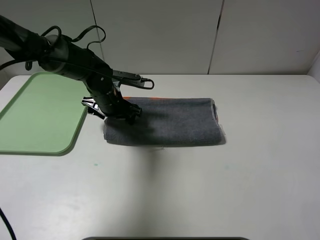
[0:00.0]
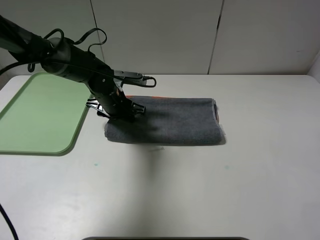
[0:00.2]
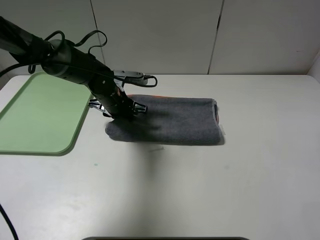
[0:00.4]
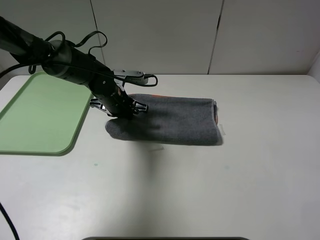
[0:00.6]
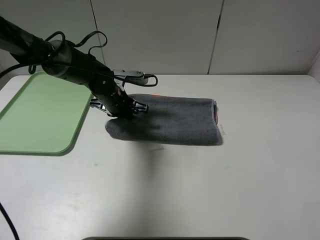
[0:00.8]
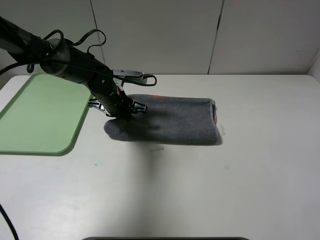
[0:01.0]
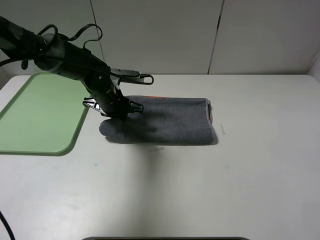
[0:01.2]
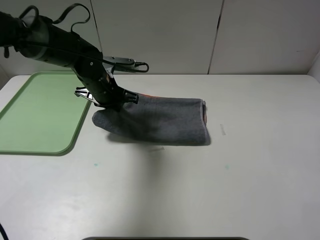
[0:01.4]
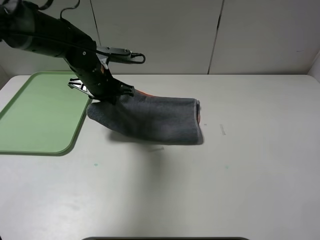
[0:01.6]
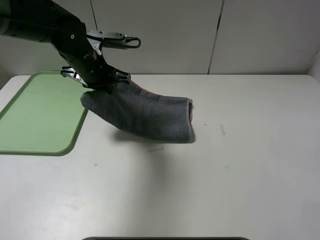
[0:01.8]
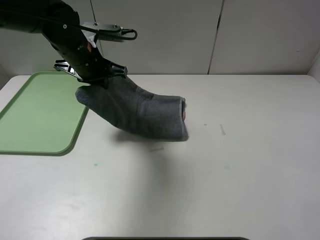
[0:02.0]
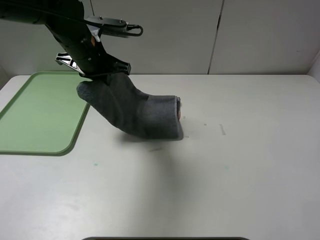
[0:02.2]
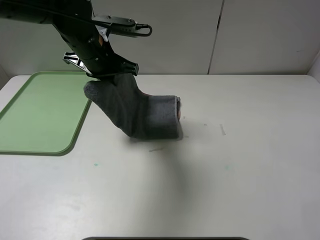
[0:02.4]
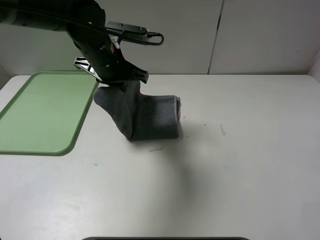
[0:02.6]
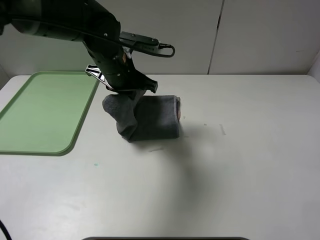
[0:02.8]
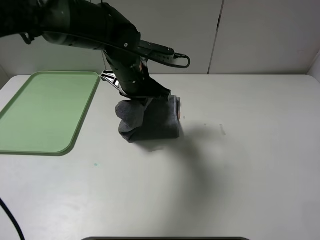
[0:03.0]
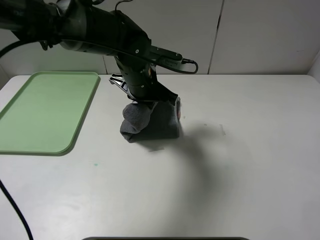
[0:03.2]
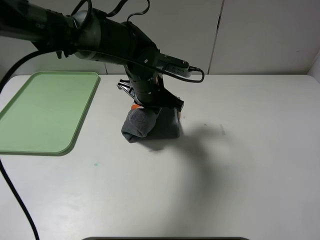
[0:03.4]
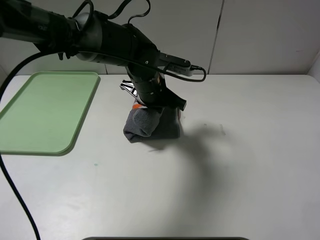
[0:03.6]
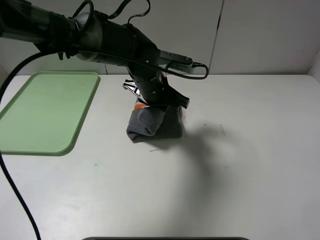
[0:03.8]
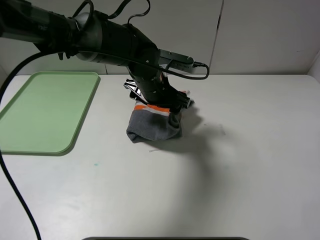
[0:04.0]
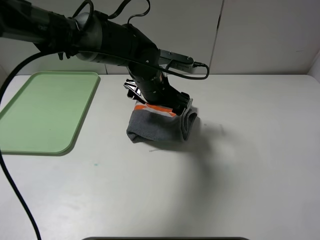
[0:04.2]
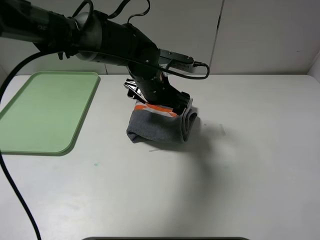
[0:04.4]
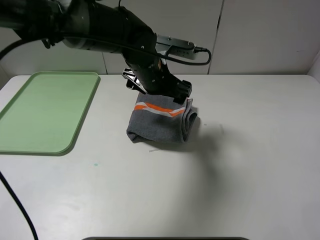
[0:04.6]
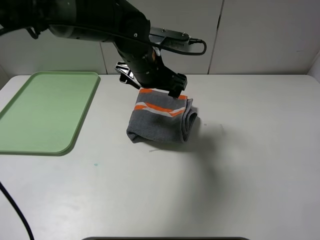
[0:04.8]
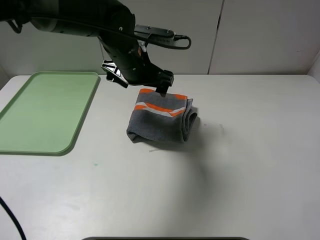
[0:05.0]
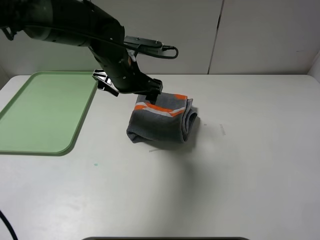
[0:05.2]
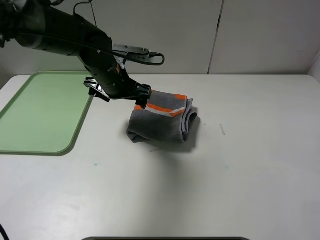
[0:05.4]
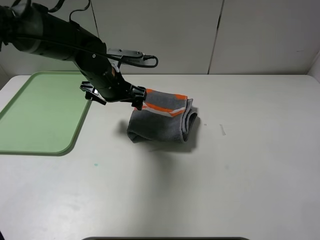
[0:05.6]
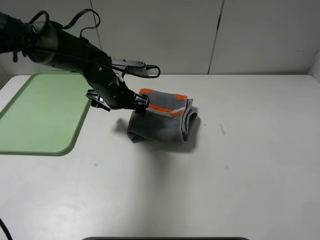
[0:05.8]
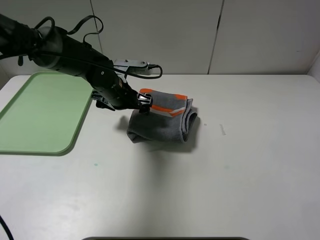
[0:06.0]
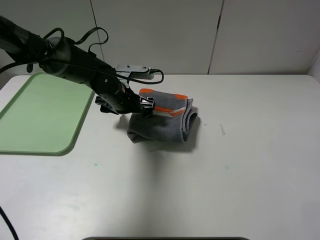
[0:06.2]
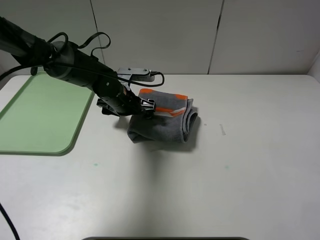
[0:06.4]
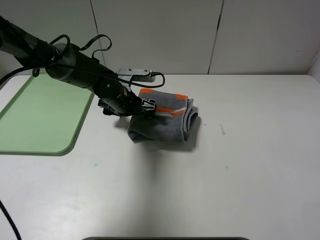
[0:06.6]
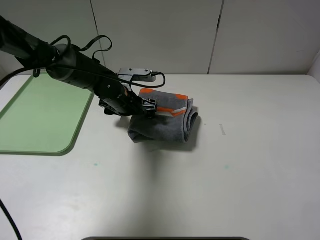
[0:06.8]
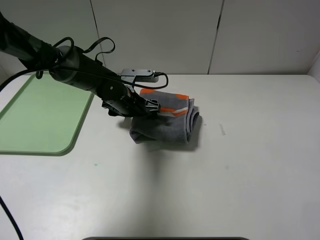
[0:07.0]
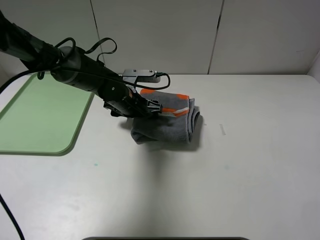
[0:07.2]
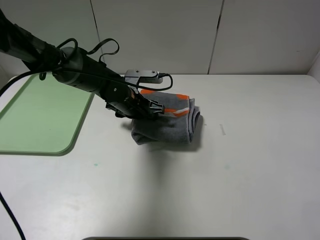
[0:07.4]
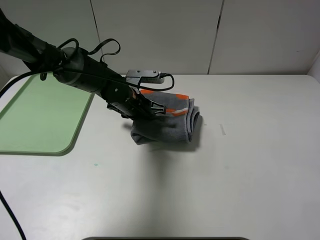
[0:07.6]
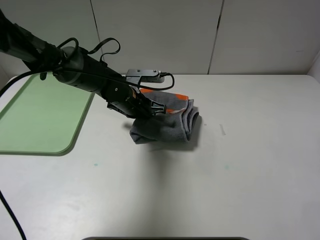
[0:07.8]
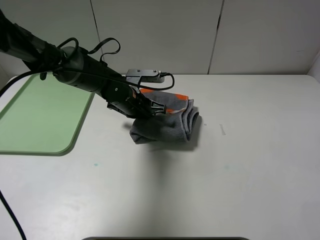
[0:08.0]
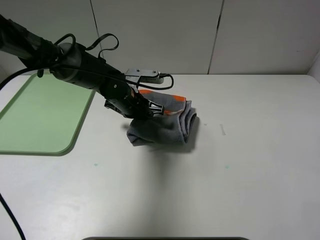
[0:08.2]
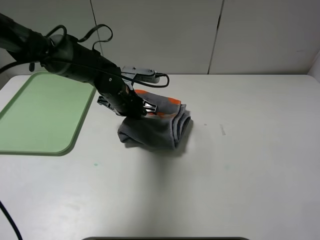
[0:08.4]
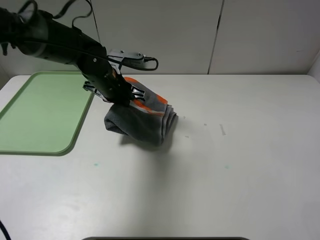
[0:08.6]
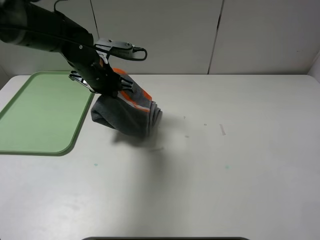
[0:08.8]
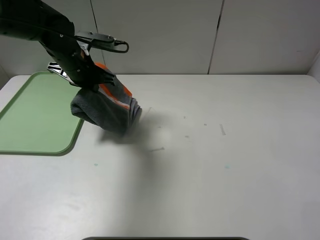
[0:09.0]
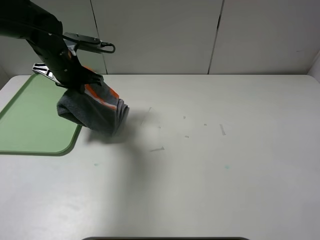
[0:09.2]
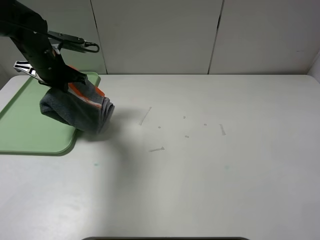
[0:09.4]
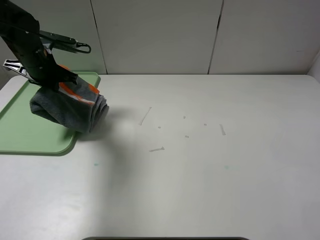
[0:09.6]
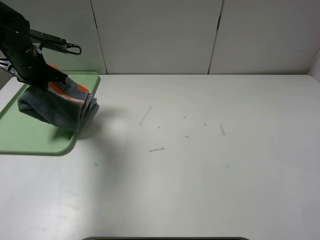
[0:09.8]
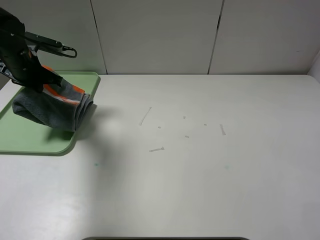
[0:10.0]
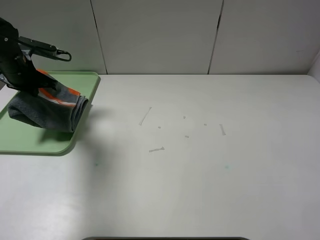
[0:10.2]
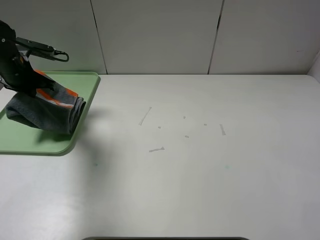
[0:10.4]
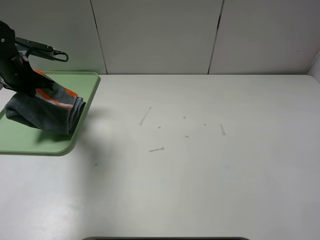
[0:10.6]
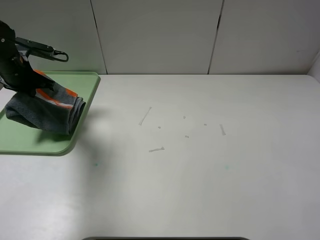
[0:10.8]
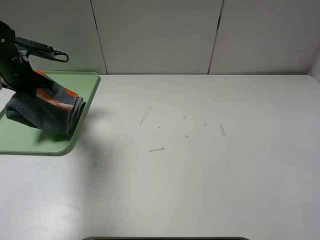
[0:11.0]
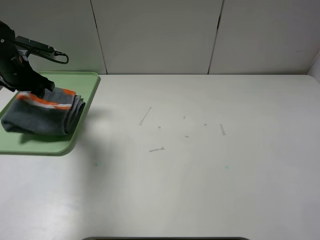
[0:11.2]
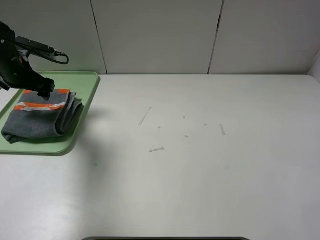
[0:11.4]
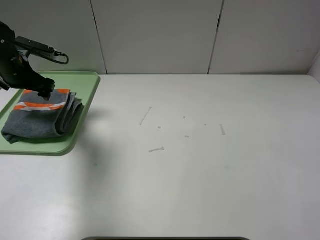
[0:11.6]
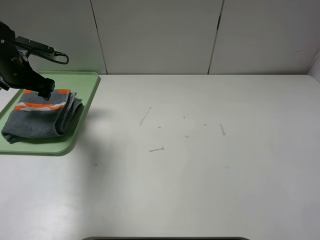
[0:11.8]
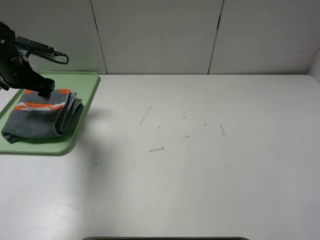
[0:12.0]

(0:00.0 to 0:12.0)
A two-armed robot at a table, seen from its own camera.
Step, 0:00.0 - 0:04.6: Fold the grey towel from left to right with left gripper.
Step, 0:04.8 - 0:11.2: Place the folded grey towel on the tray with the left gripper.
0:00.0 - 0:01.6: The left gripper moves upward, approximately 5 cm, and closes its fingers.
0:01.6 - 0:03.0: The left gripper travels to the right by some 10 cm.
0:03.0 - 0:04.4: The left gripper opens.
0:04.4 - 0:06.0: The left gripper goes about 10 cm to the left.
0:06.0 - 0:07.6: The left gripper closes up.
0:07.6 - 0:09.0: The left gripper shifts approximately 15 cm to the left and upward.
0:09.0 - 0:10.4: The left gripper is displaced to the left by roughly 15 cm.
0:10.4 - 0:12.0: The left gripper opens its fingers.

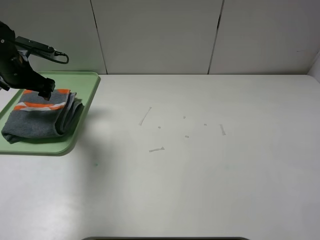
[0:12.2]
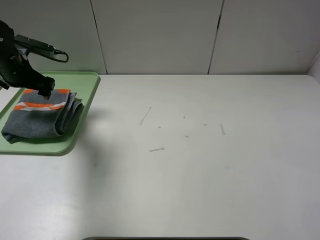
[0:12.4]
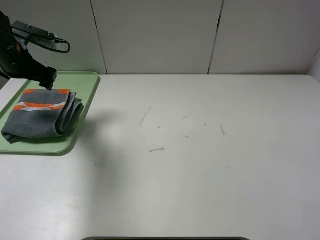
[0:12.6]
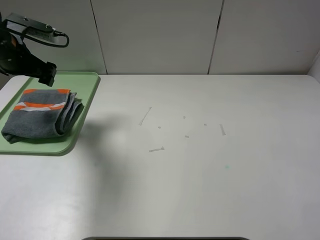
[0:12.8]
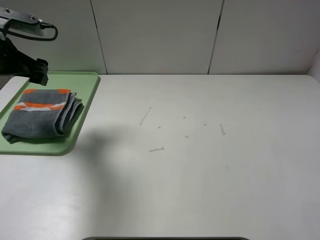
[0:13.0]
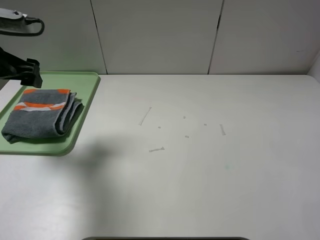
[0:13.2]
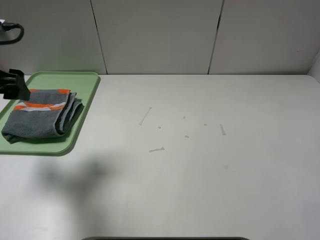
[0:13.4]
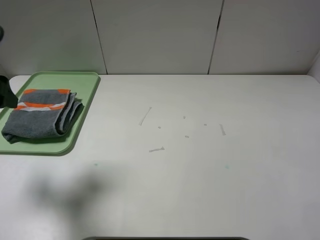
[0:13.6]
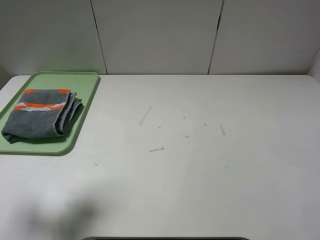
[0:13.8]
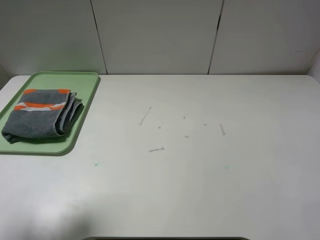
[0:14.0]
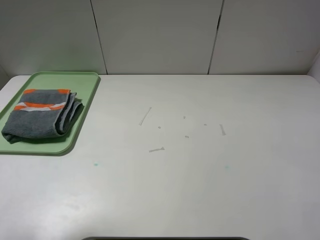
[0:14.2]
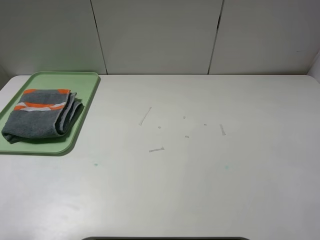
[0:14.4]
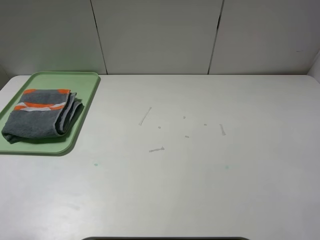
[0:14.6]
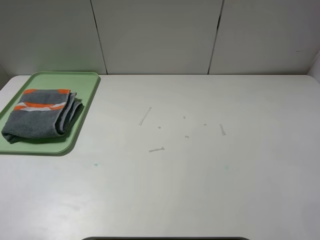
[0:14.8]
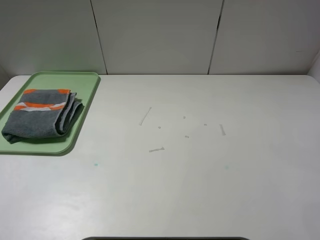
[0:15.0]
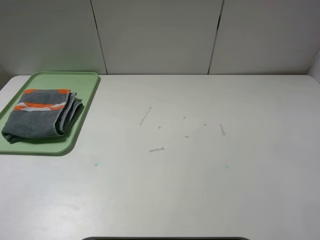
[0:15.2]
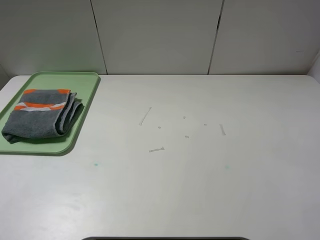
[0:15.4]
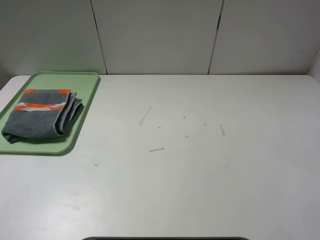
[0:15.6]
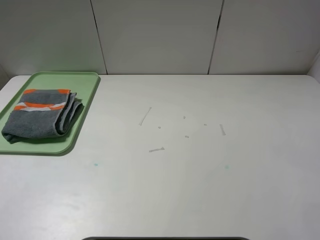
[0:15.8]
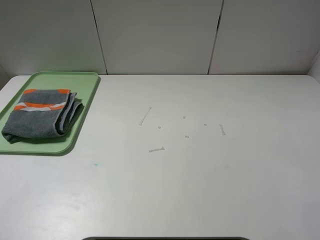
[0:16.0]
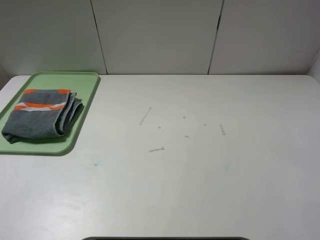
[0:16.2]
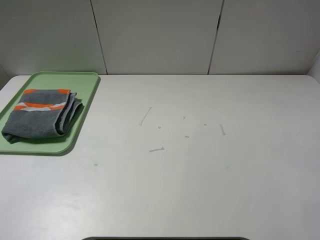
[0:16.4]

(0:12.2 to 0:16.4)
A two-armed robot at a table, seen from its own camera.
0:12.2 - 0:13.6: The left gripper travels backward and upward by roughly 20 cm.
0:13.6 - 0:15.0: The left gripper heads backward, covering approximately 20 cm.
